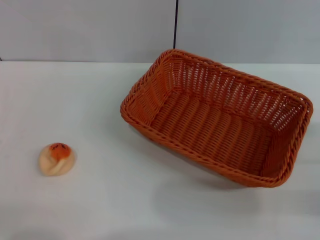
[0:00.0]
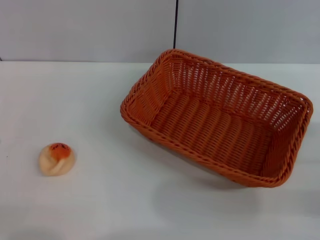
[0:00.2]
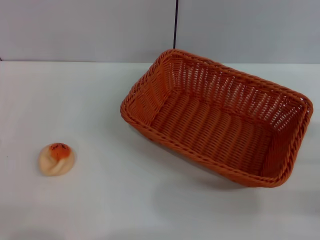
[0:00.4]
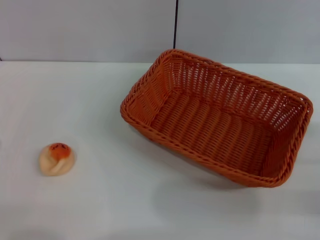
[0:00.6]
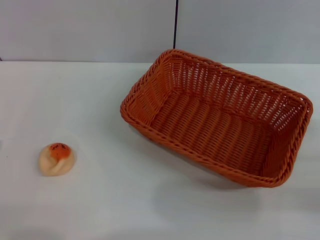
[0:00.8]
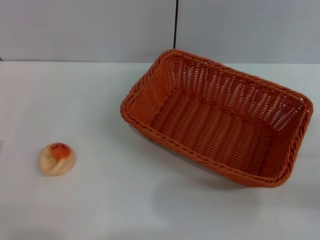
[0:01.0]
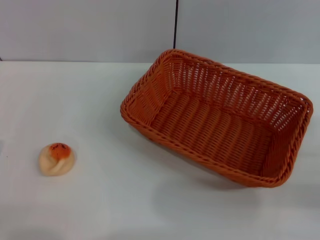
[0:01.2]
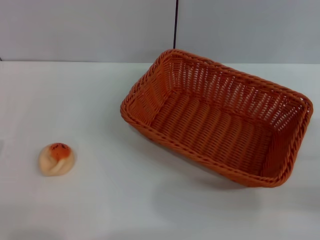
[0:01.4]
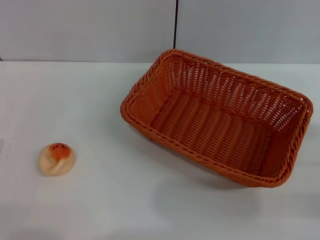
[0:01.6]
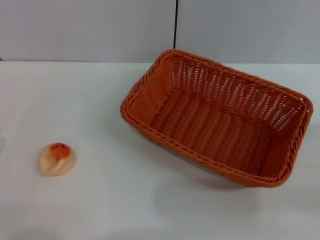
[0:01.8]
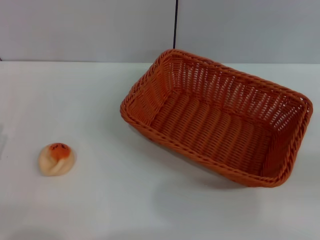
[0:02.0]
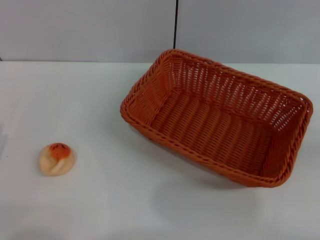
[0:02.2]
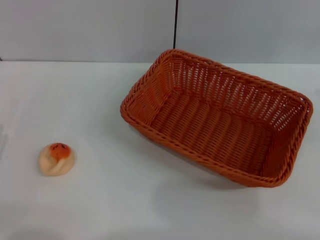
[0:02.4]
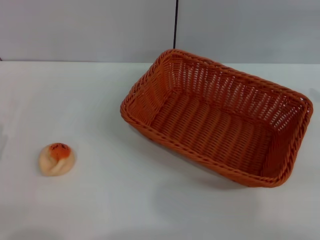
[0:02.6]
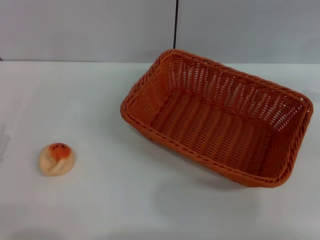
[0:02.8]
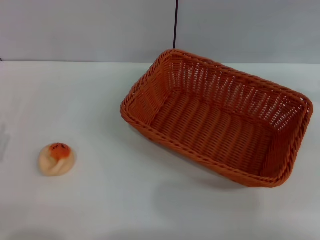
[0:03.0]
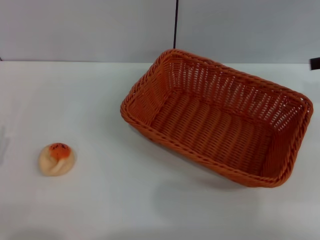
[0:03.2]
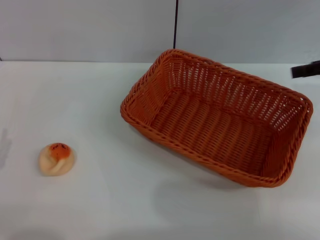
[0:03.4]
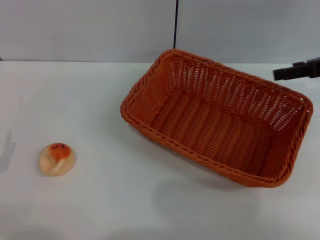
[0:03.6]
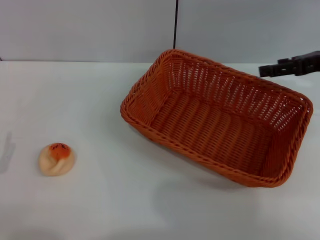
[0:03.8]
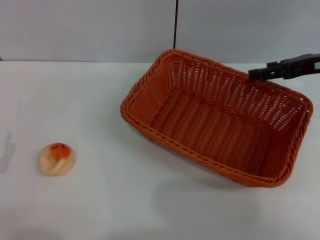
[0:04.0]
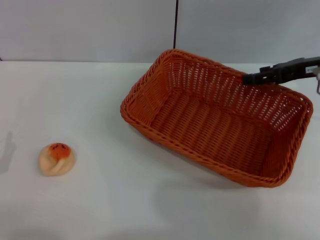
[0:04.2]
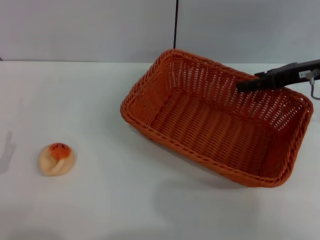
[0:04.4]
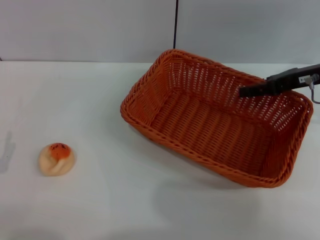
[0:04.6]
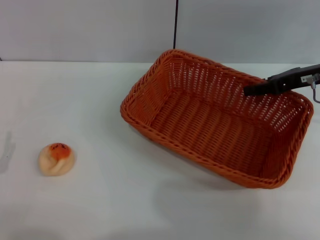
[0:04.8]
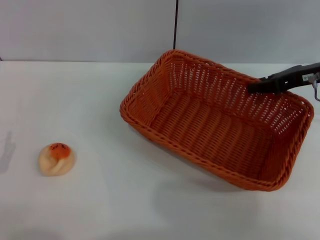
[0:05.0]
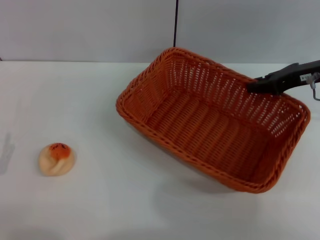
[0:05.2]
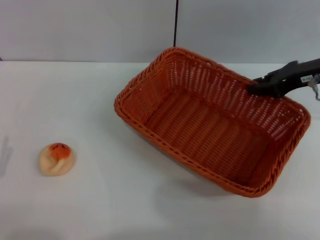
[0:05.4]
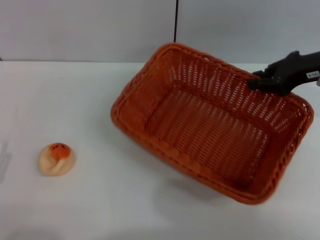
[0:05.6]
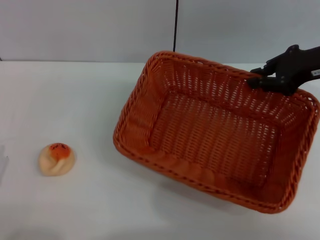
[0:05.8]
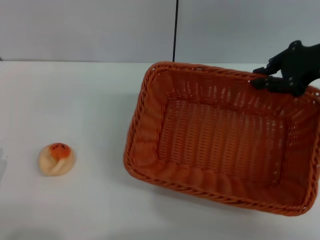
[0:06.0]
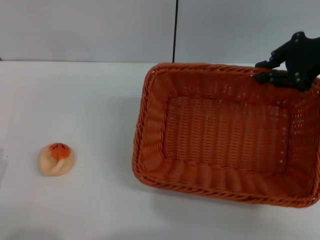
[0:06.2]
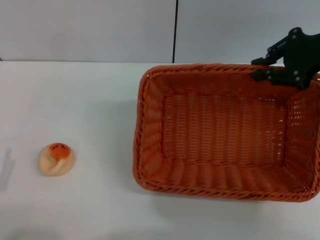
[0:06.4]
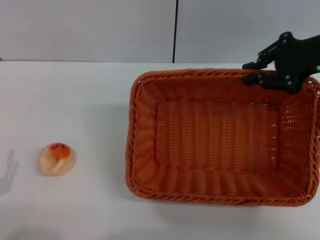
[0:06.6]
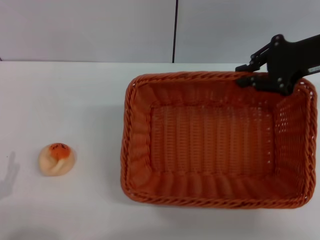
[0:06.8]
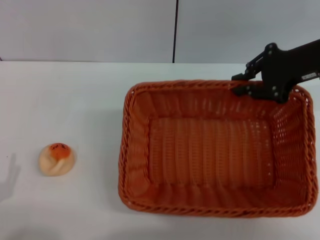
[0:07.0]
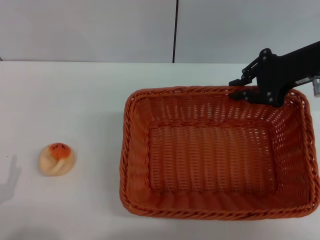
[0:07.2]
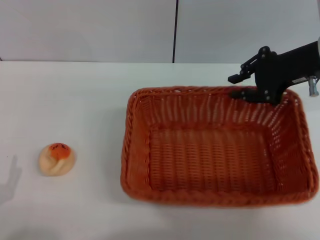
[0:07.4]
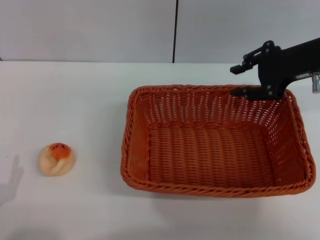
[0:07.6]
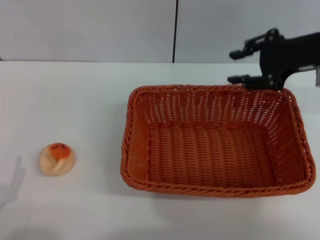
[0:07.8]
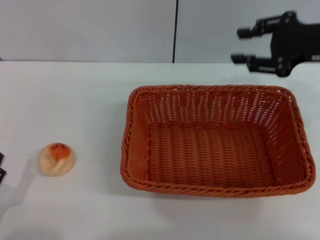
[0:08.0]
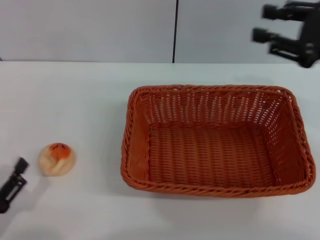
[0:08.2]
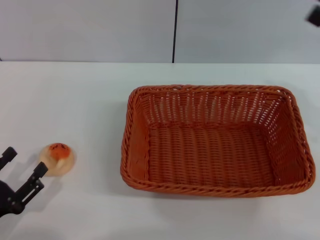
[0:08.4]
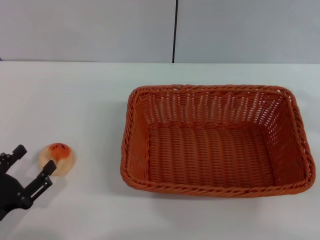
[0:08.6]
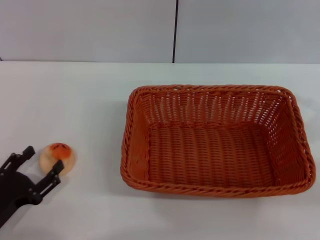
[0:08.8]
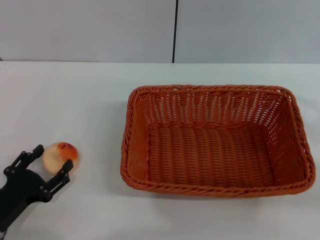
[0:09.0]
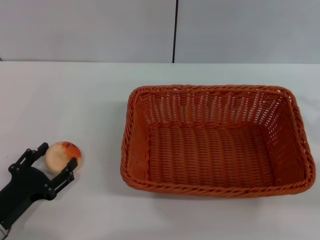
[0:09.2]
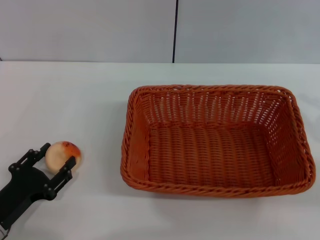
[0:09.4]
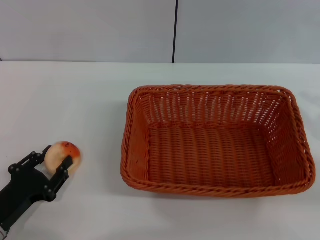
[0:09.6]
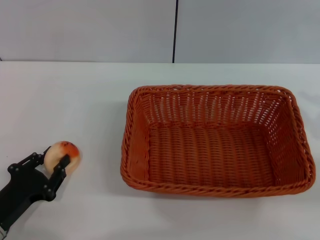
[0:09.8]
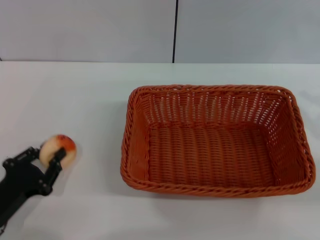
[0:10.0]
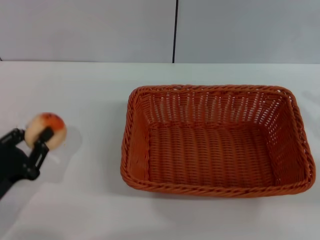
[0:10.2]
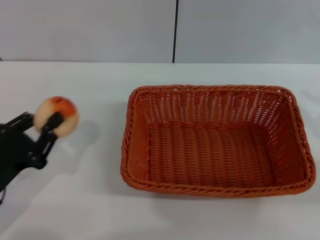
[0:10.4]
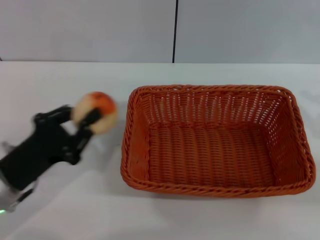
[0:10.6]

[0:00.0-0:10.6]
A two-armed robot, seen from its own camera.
Step, 0:00.0 to 0:07.6: Move the basket to the center of view with the right gripper.
Step, 0:08.0 to 0:10.0: Pick up the egg yolk pastry with the left gripper.
0:03.0 to 0:04.6: The right gripper goes roughly 15 cm to the left and downward.
0:04.6 to 0:06.0: The right gripper is displaced upward by about 5 cm, and closes.
0:06.0 to 0:07.6: The grippers make only small movements.
0:07.6 to 0:09.0: The left gripper heads forward, covering about 5 cm, while the right gripper goes approximately 20 cm backward and to the right.
0:09.0 to 0:10.6: The left gripper is displaced upward by roughly 5 cm, and closes.

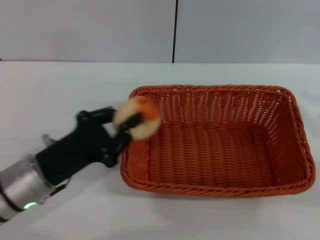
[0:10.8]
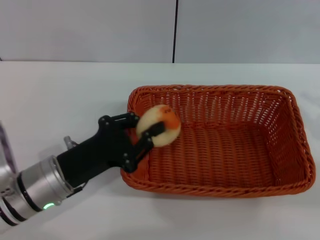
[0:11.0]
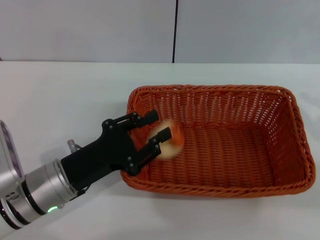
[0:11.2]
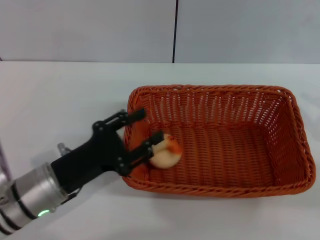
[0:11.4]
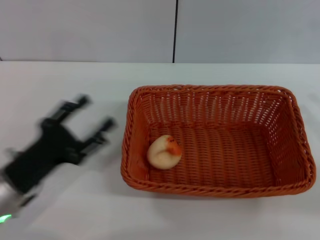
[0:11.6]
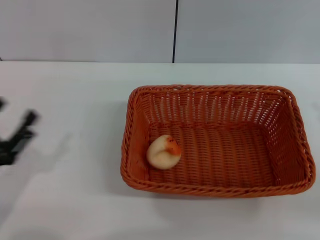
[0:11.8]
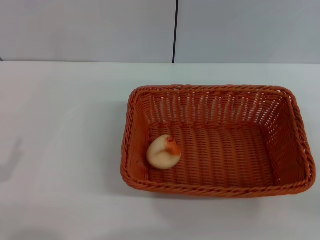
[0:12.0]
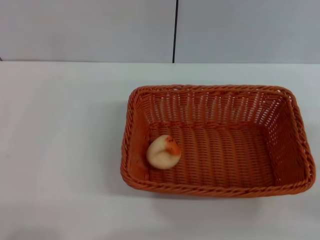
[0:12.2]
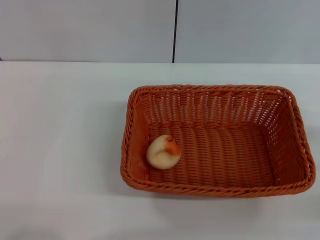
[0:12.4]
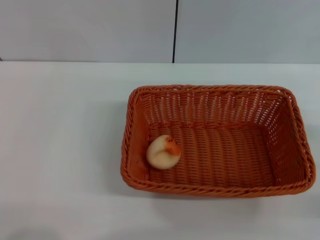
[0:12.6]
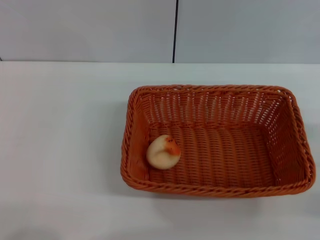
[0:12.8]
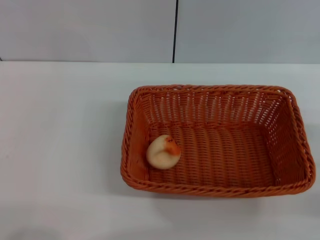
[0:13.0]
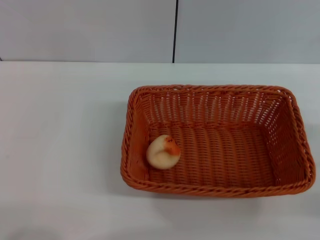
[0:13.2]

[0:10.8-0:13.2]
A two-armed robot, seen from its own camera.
Step, 0:10.8 to 0:11.4: Place the egg yolk pastry into the basket with the left gripper.
0:10.8 to 0:12.0: The left gripper goes roughly 15 cm to the left and backward, and opens up; the right gripper moves some 5 cm.
